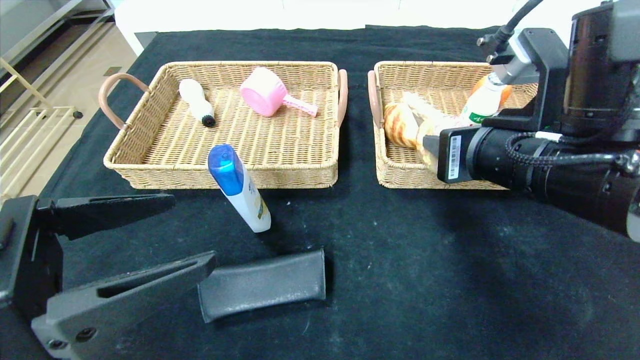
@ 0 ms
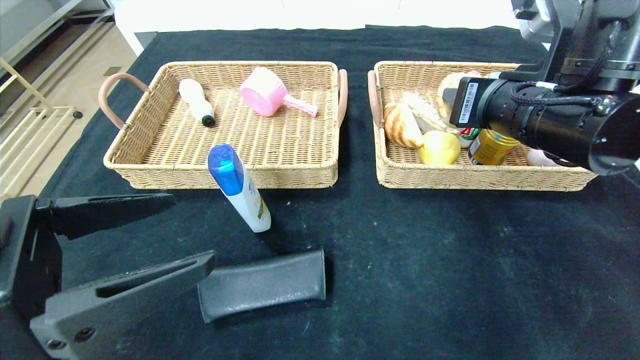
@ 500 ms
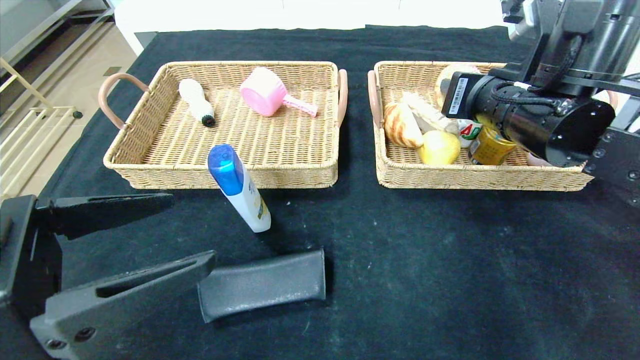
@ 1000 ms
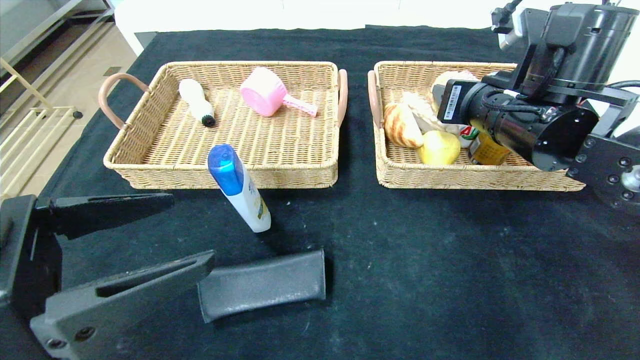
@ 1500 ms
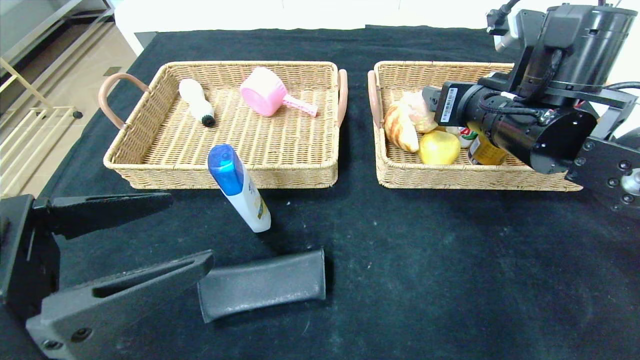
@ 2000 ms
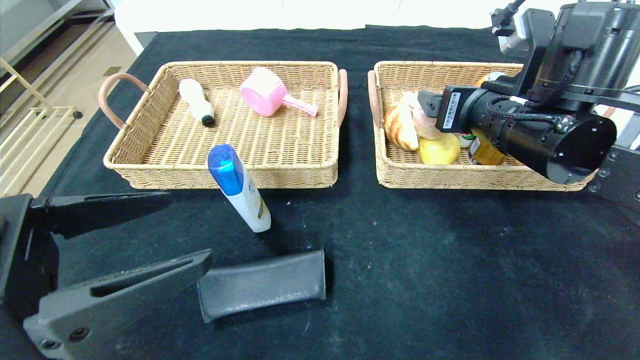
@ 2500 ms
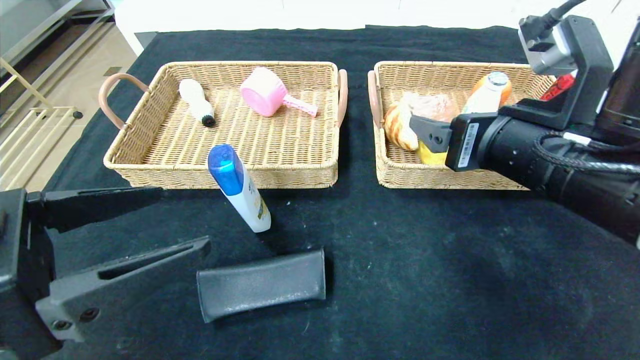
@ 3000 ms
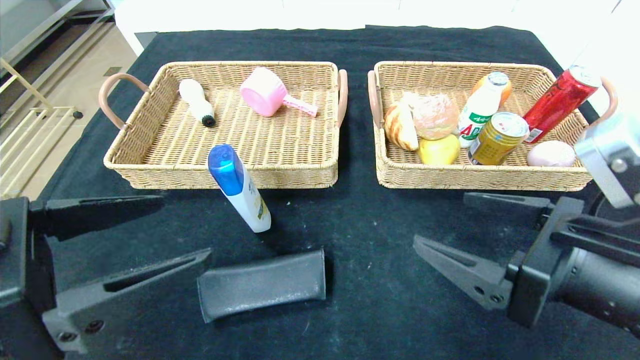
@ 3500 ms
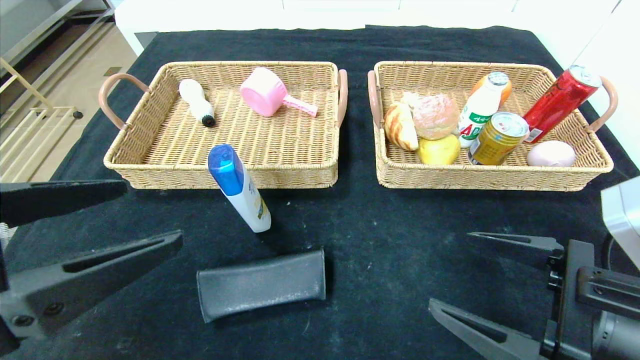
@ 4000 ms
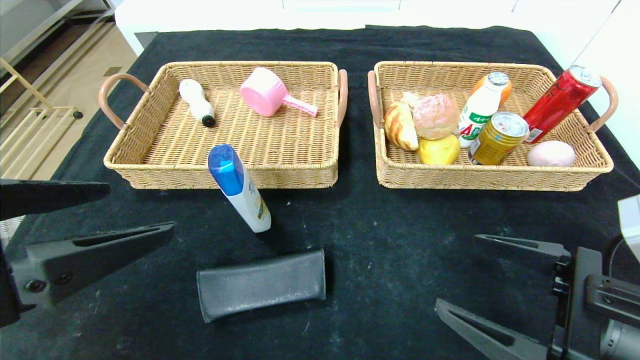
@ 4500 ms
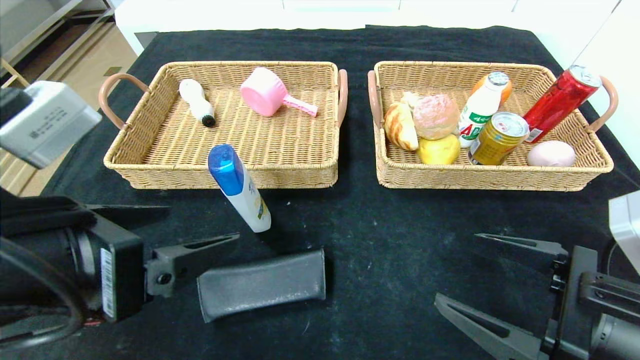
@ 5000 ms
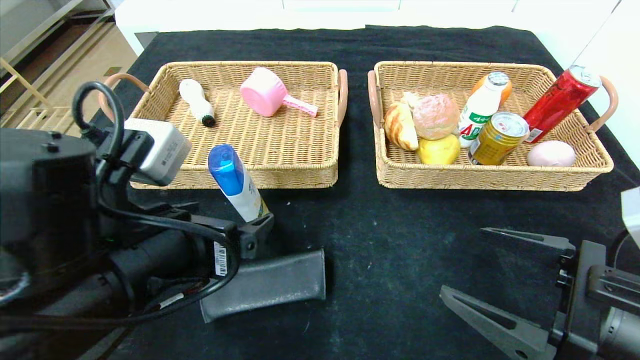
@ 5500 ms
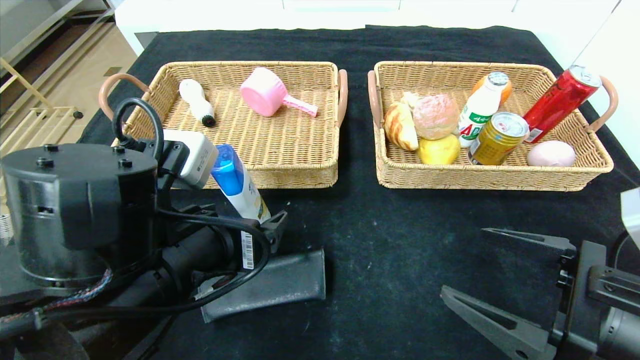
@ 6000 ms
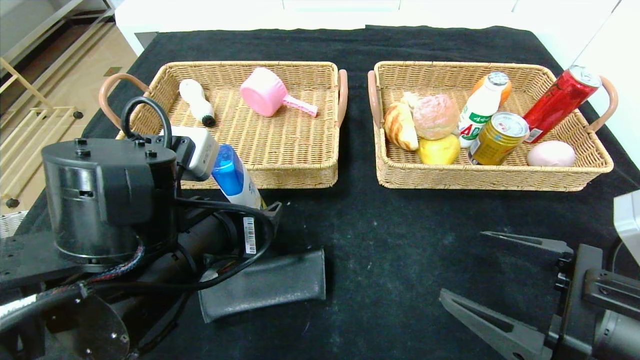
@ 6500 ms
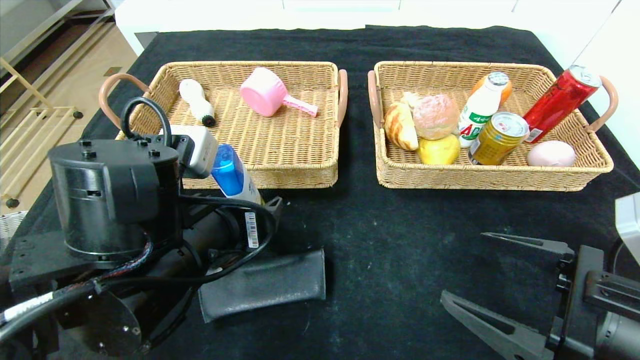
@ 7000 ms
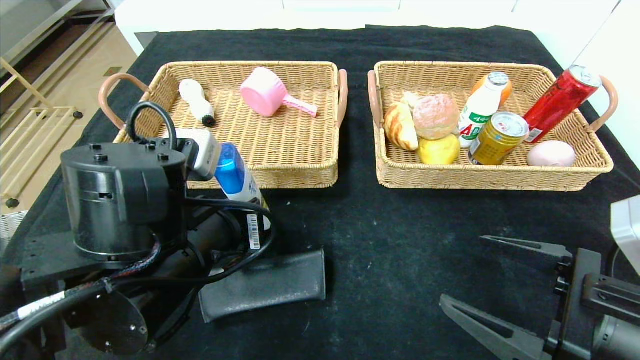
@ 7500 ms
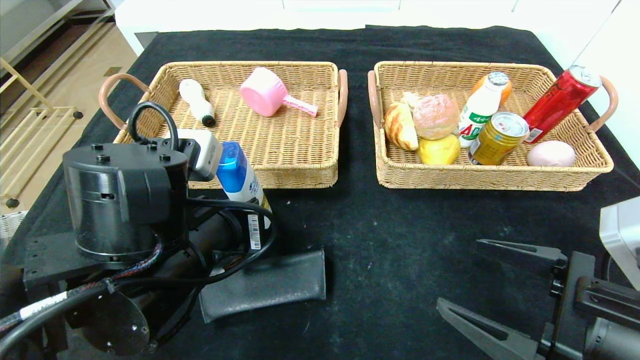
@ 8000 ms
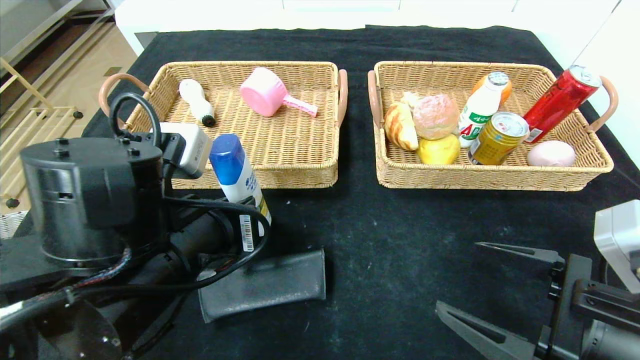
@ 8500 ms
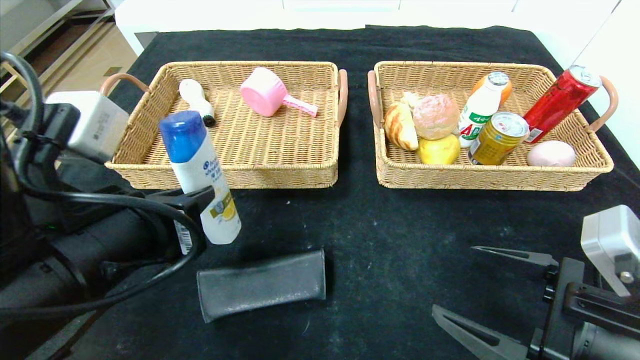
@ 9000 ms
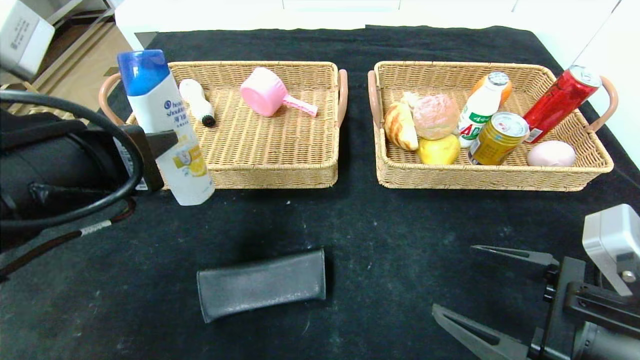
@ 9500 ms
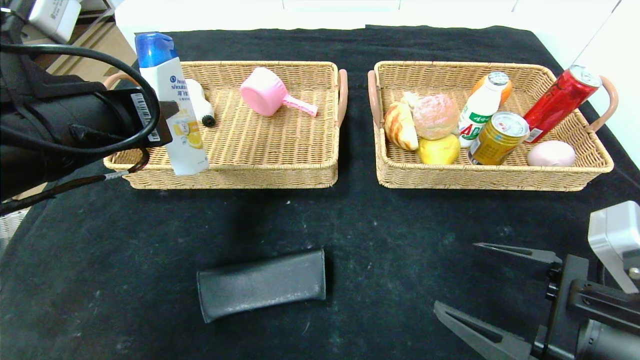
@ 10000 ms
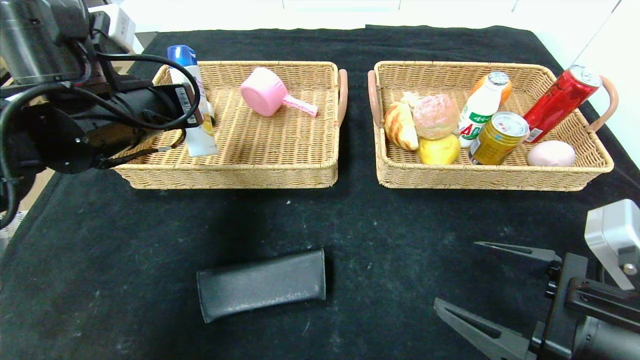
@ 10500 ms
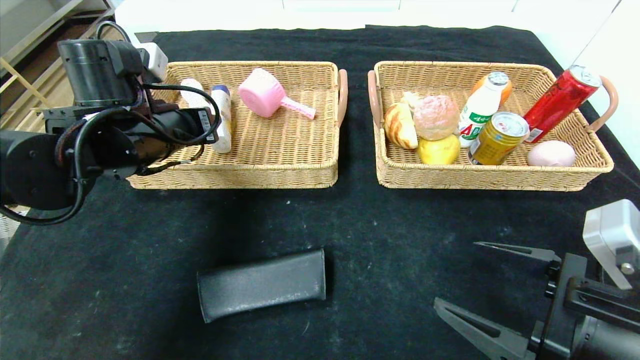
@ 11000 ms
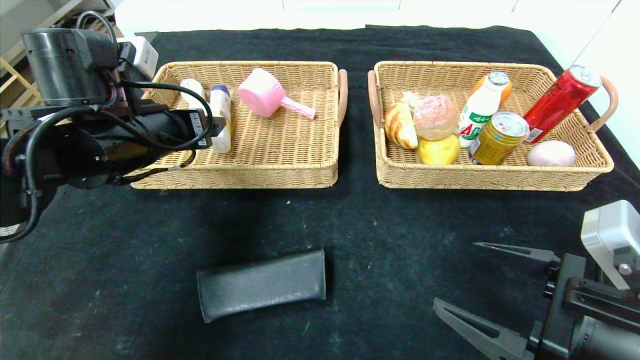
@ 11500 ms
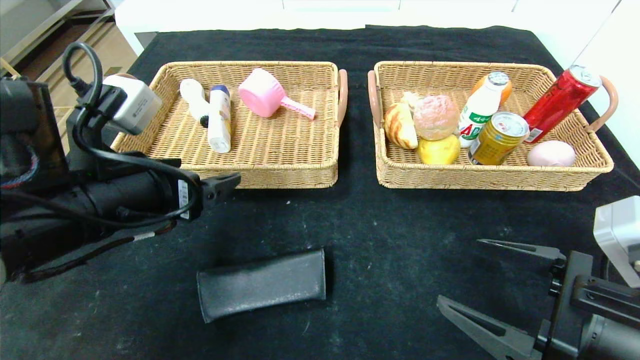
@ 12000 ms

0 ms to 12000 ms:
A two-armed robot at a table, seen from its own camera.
Step, 0 ms to 2000 ms: Grasp the round bread and put it in the right basket.
Step, 2500 ms to 10500 ms: Grasp the shampoo and put it in the left basket.
0 ms to 2000 ms: The right gripper moves forward, some 10 cm, and opens up.
2000 ms to 4000 ms: The right gripper moves backward and downward, approximately 20 cm.
4000 ms to 6000 ms: The left gripper moves to the right, forward and downward, approximately 15 cm.
6000 ms to 8000 ms: The left gripper closes.
8000 ms to 10000 ms: The left gripper is displaced upward and to the left by about 15 cm.
10000 ms to 12000 ms: The left gripper goes about 5 cm downward, reaches some 10 cm forward, then returns, and opens its fingers.

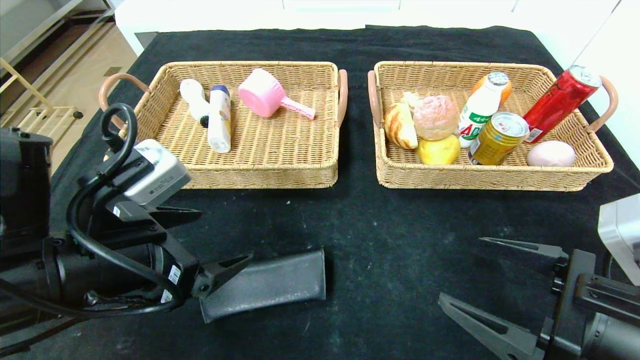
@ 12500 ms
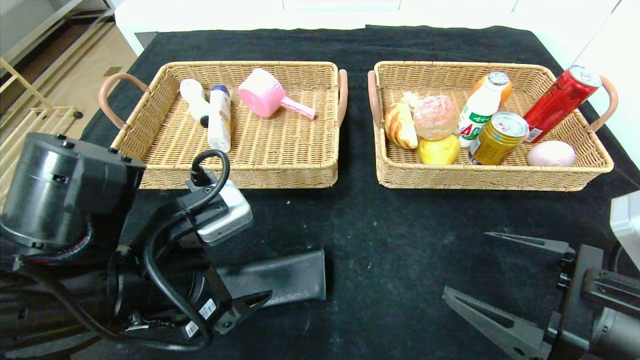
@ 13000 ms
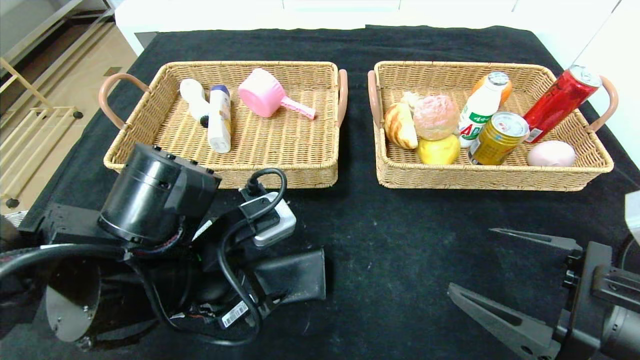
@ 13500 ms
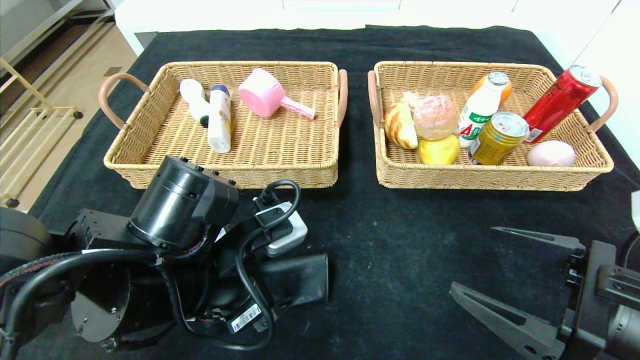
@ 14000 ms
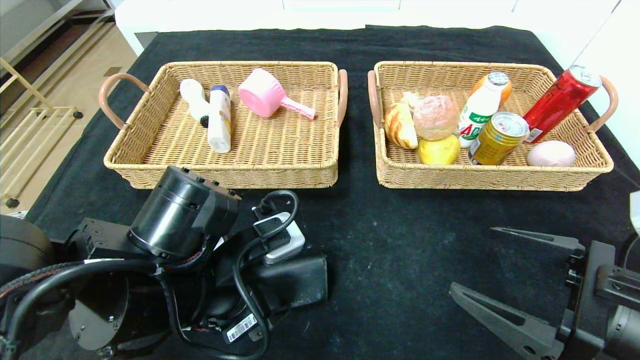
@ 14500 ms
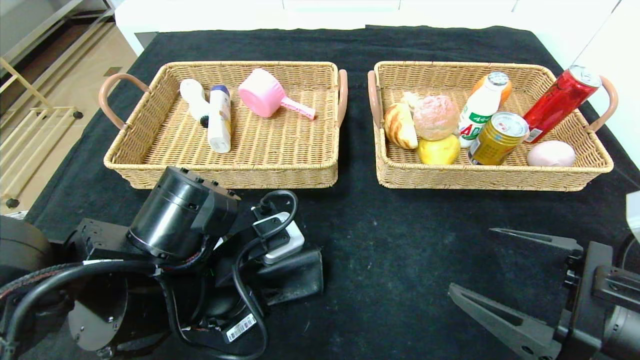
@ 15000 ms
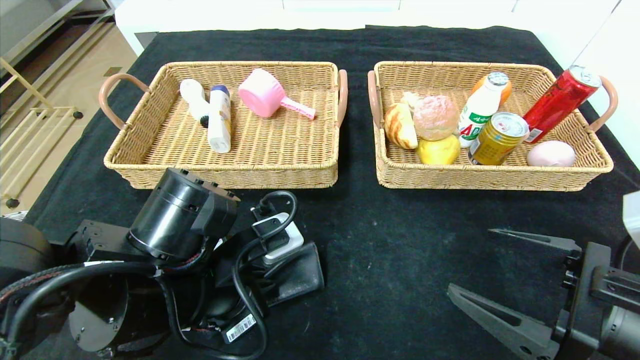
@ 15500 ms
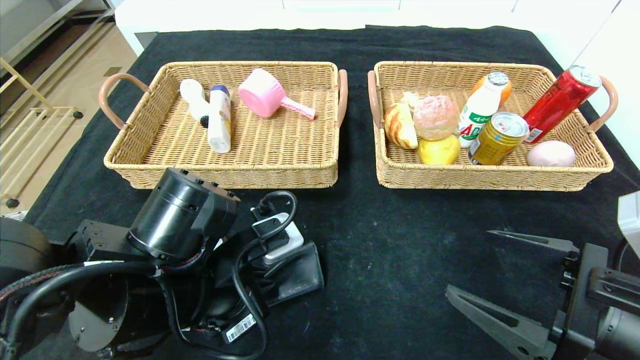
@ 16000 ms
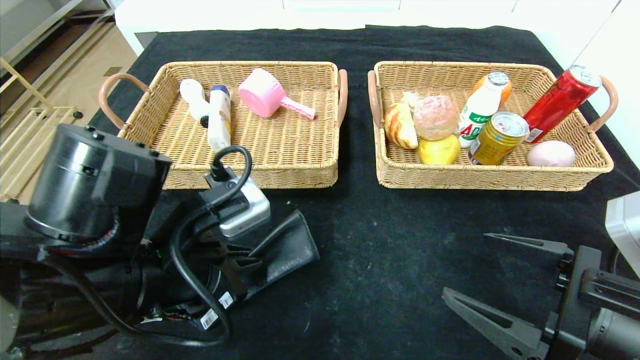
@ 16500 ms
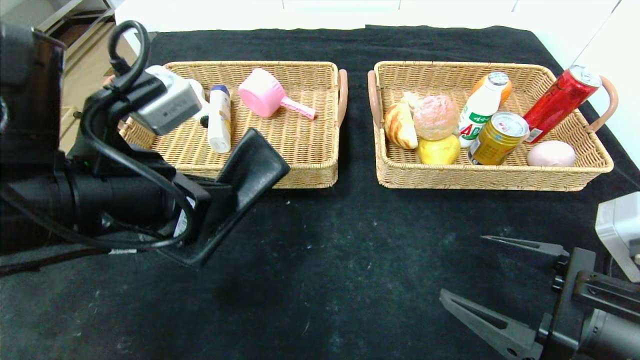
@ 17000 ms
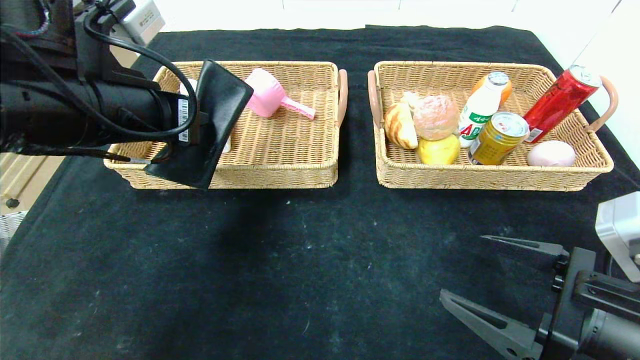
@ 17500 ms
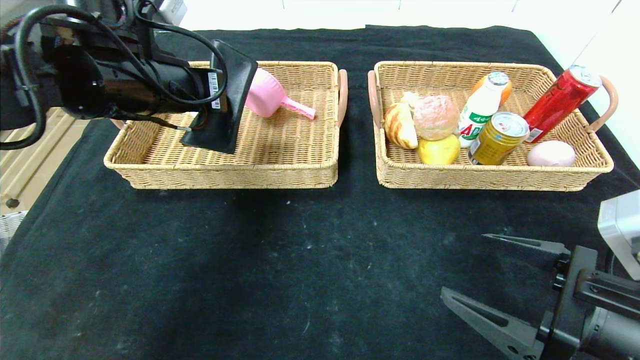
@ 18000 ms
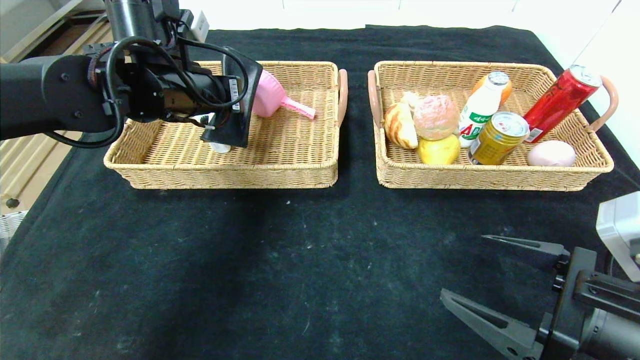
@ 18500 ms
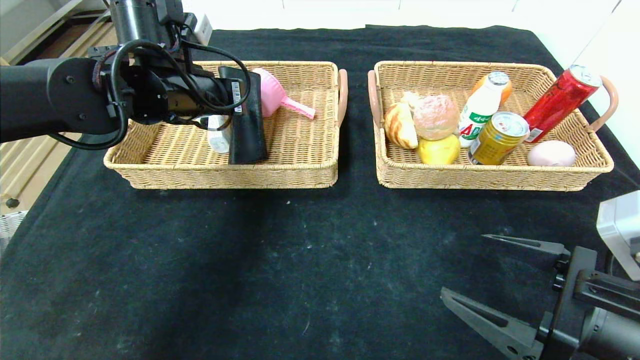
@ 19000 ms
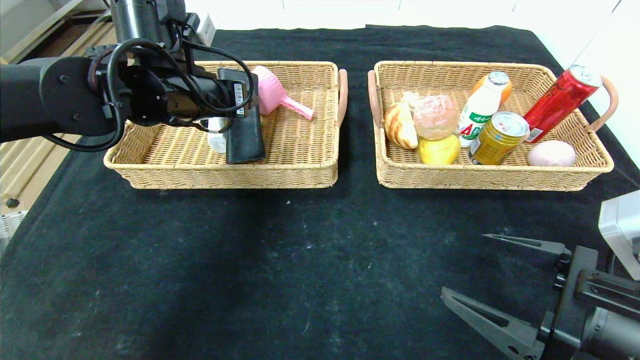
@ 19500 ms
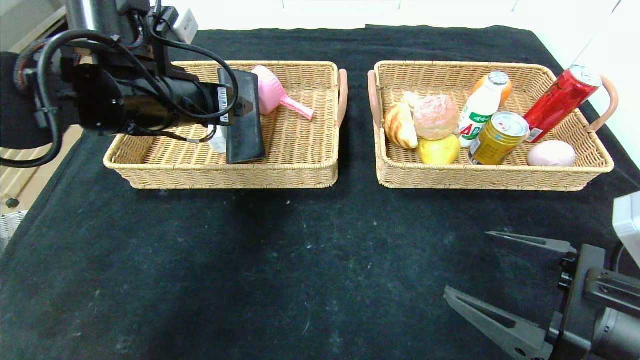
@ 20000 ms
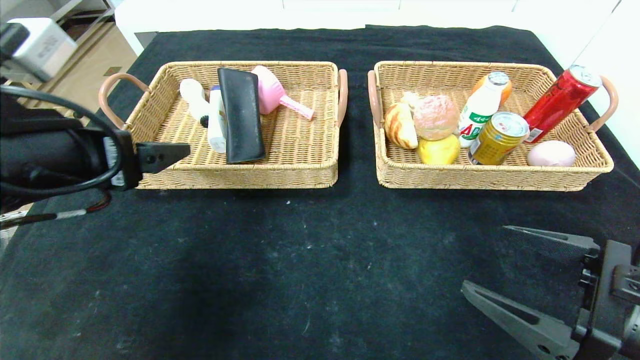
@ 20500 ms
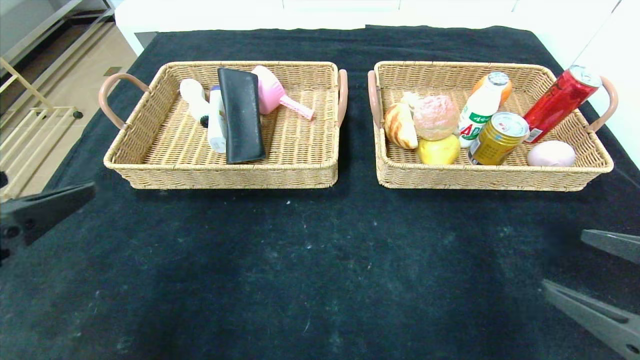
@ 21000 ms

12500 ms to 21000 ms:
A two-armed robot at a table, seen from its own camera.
Step, 12500 ms to 19000 ms: Grasp the glasses case and put it in the left basket.
12500 ms to 14500 ms: The left gripper shifts approximately 5 cm to the right.
14500 ms to 16500 ms: The left gripper closes its fingers.
16500 ms to 19000 ms: The left gripper travels forward and upward by some 20 cm.
19000 ms to 21000 ms: The left gripper is displaced backward by about 30 cm, and opens. The right gripper travels to the right by about 5 cm.
